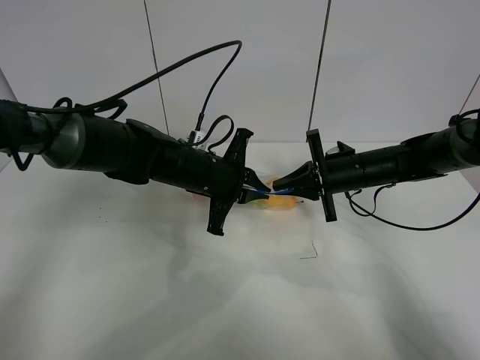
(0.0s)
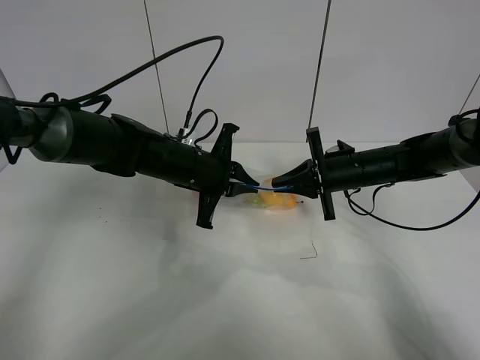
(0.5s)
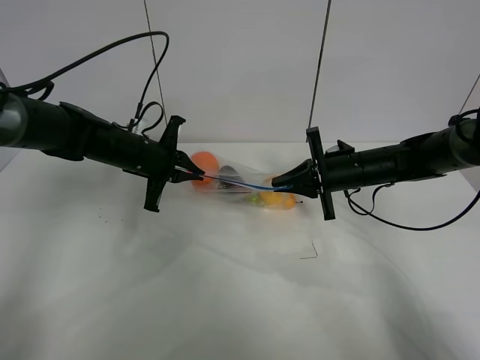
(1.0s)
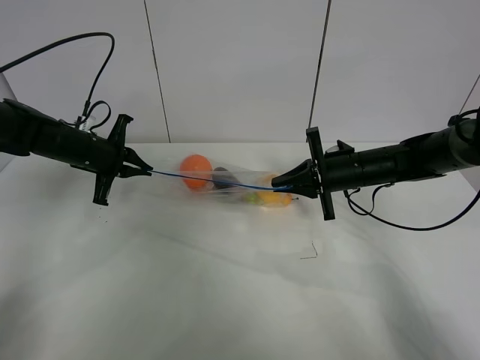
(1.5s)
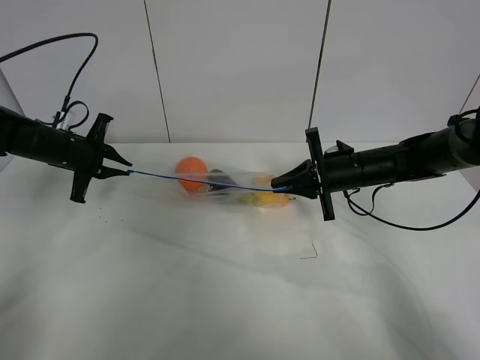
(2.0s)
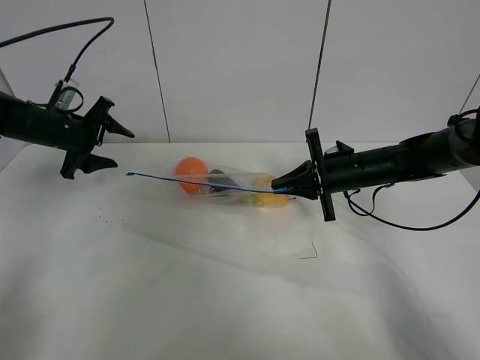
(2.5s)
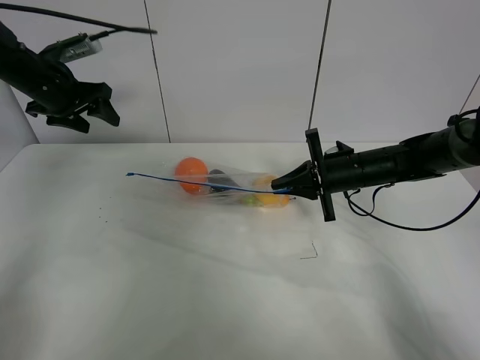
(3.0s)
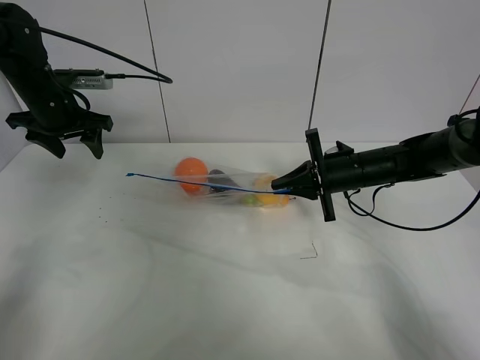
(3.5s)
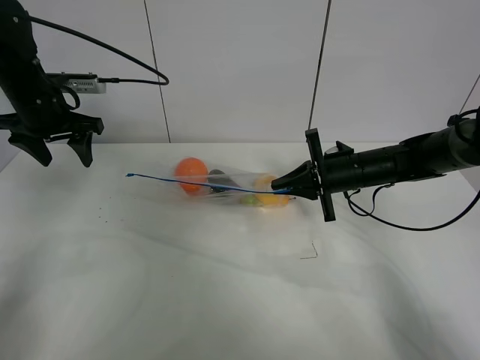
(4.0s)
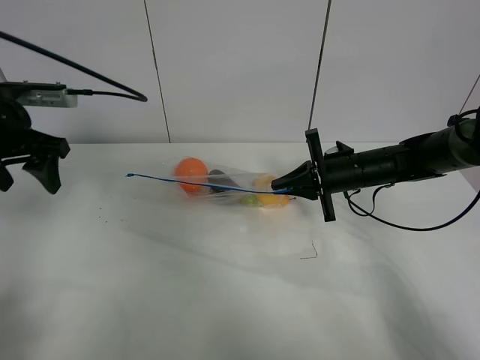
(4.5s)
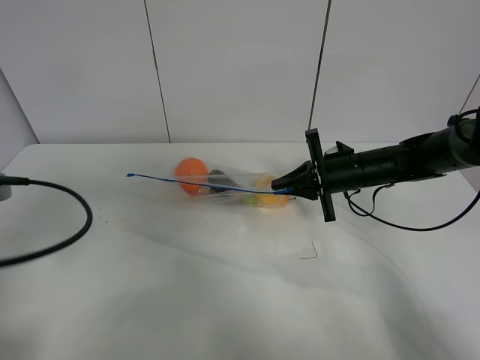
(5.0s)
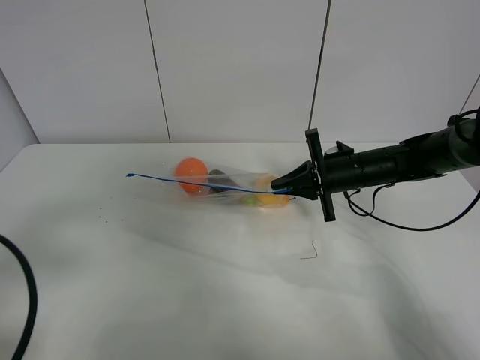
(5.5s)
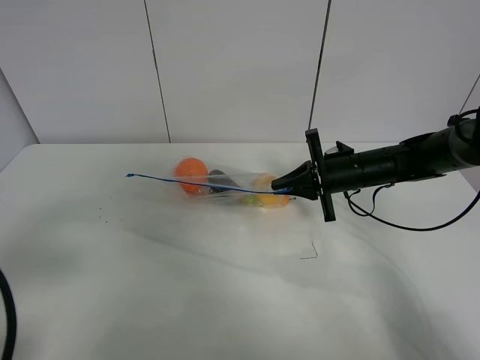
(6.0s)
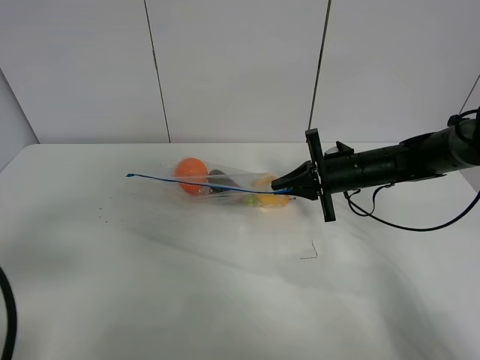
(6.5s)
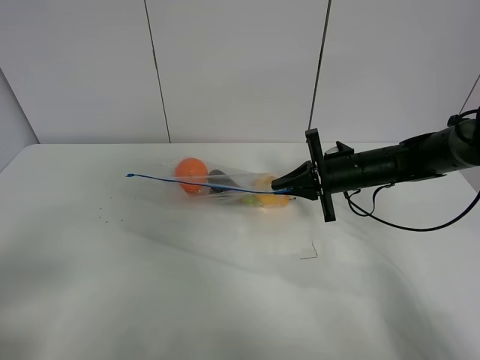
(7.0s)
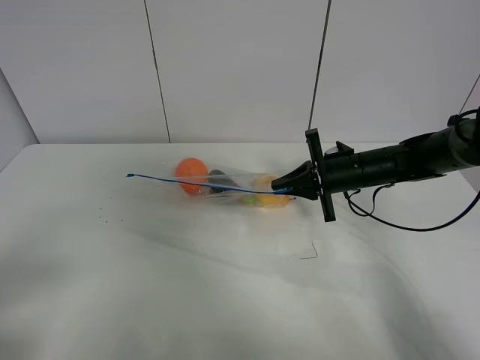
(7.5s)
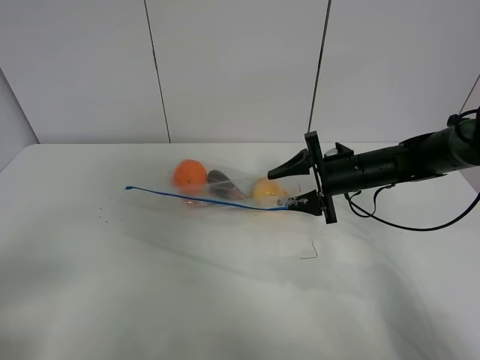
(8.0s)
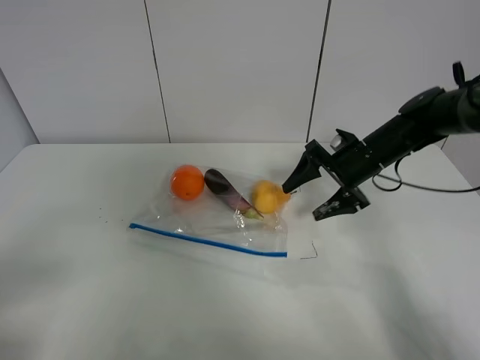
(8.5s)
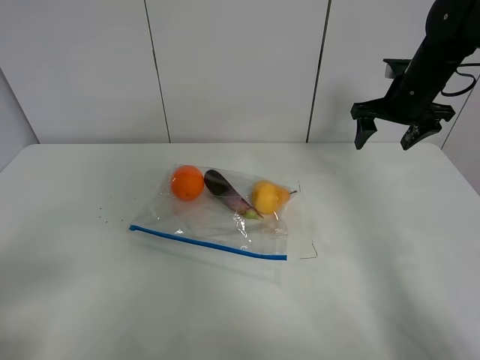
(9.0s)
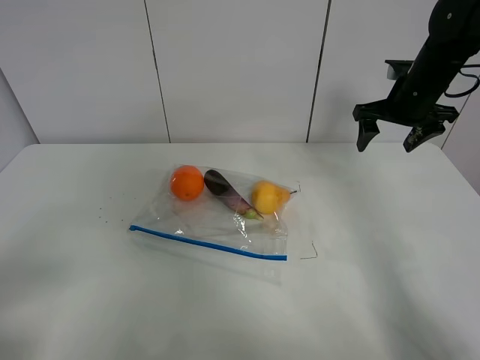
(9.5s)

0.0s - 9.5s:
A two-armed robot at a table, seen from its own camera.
Step, 0.0s - 2.0s: Pull the fruit bag with left gripper.
0.0s - 2.0s: The left gripper shifts about 25 cm to the left.
2.0s - 4.0s: The left gripper moves upward, approximately 10 cm, and opens.
4.0s - 5.5s: The left gripper heads backward, covering some 35 cm.
5.5s - 7.5s: The left gripper heads backward, covering roughly 5 cm.
7.5s - 9.5s: The right gripper travels upward and to the right by some 15 cm, and opens its fingers.

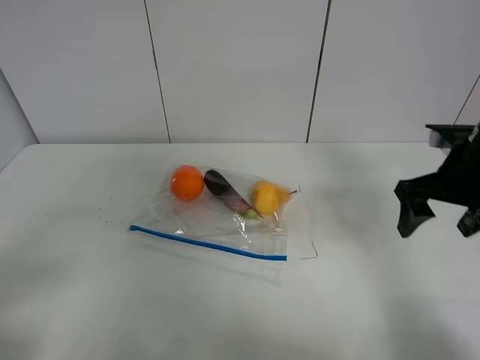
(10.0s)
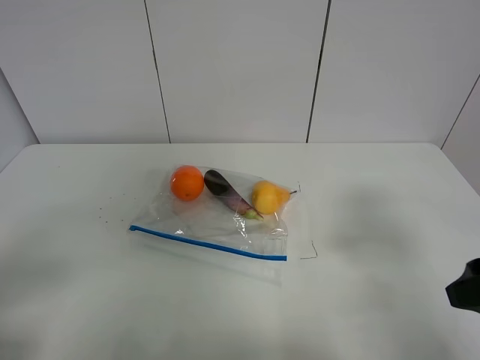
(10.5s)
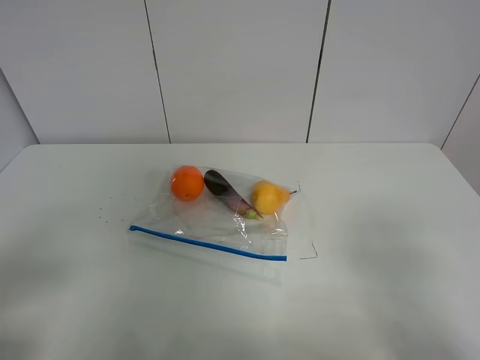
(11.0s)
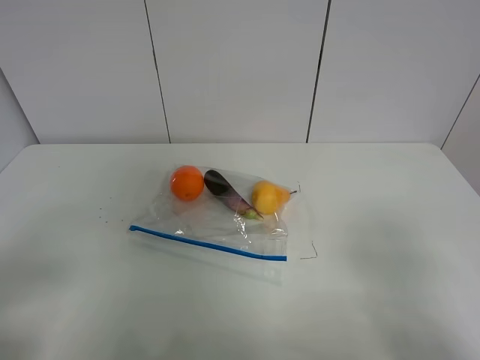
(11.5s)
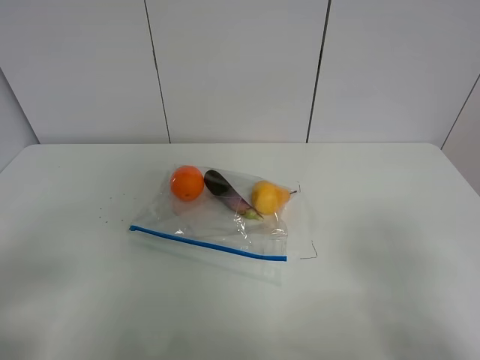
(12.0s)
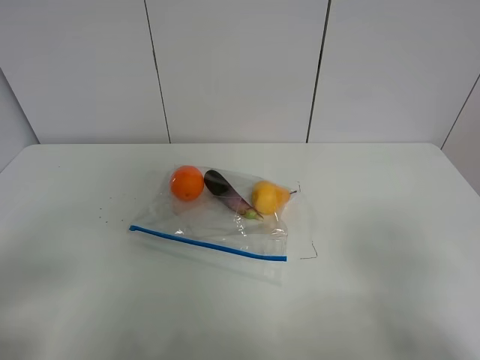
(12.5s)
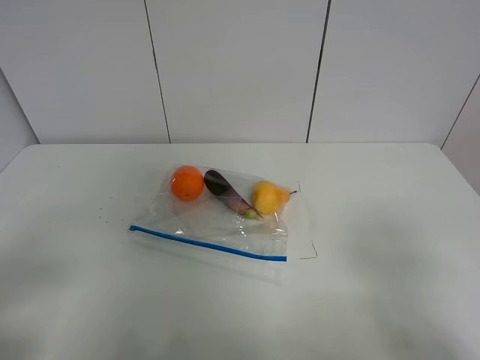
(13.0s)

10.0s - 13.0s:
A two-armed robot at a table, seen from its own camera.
10.0s - 11.5s: The right gripper travels backward by approximately 25 cm.
11.5s - 13.0s: Both grippers stay about where they are.

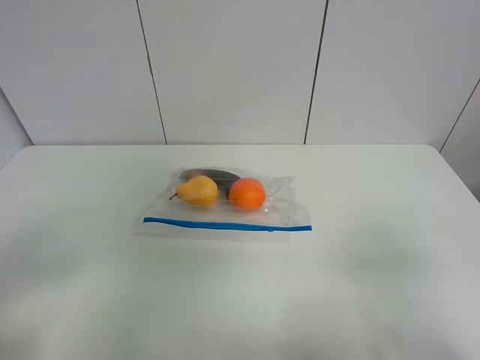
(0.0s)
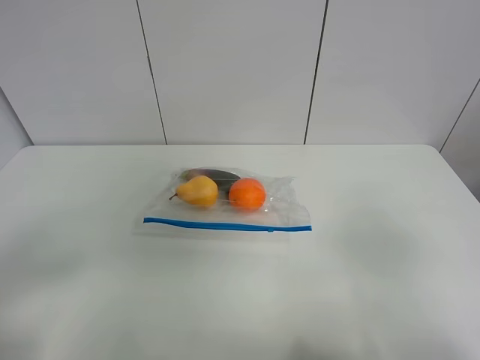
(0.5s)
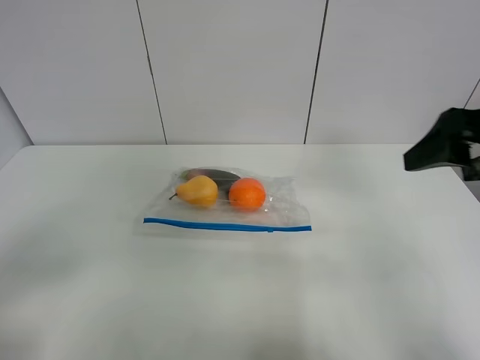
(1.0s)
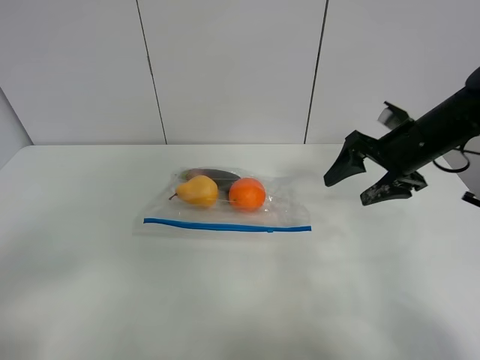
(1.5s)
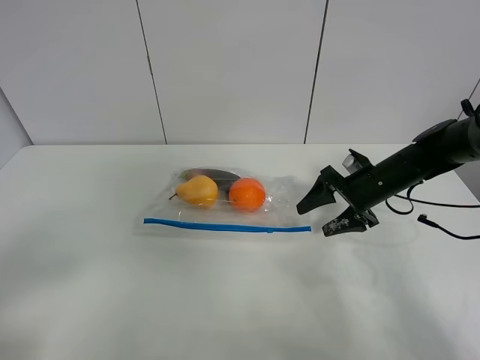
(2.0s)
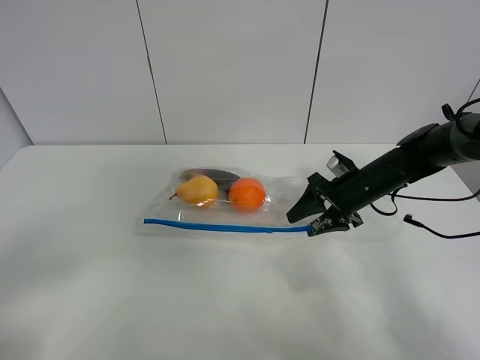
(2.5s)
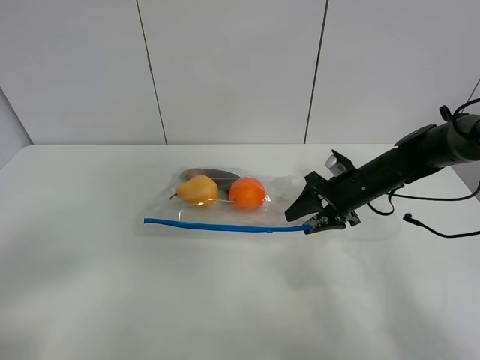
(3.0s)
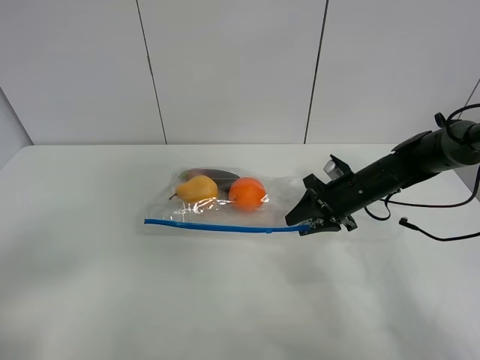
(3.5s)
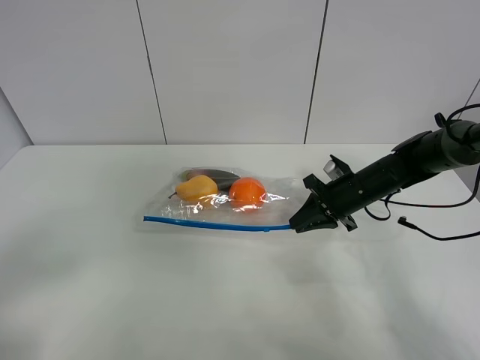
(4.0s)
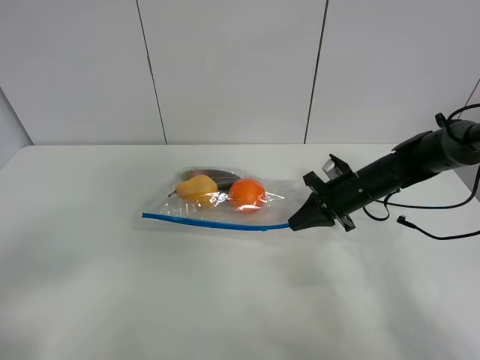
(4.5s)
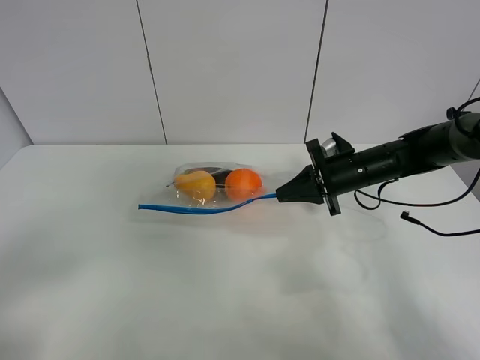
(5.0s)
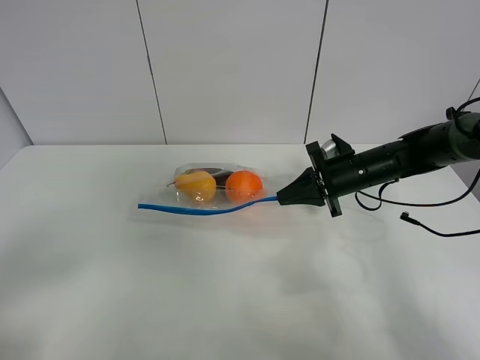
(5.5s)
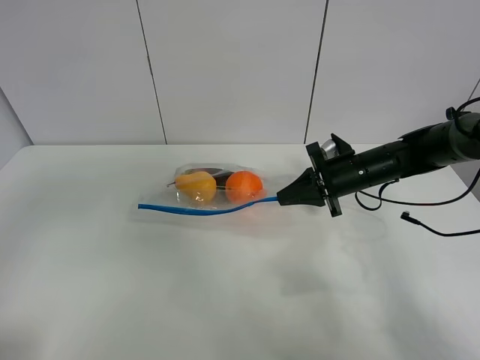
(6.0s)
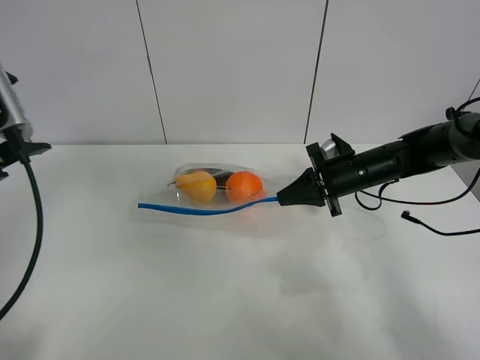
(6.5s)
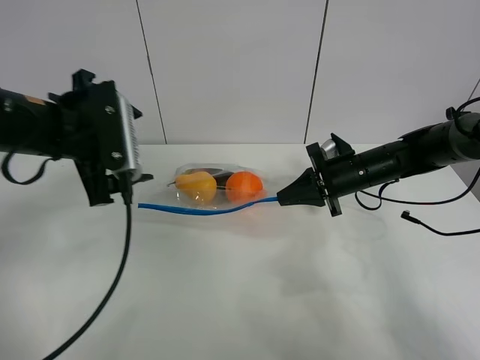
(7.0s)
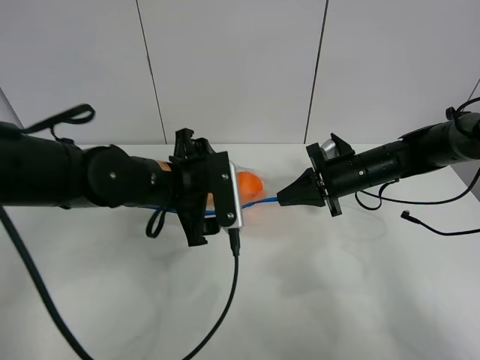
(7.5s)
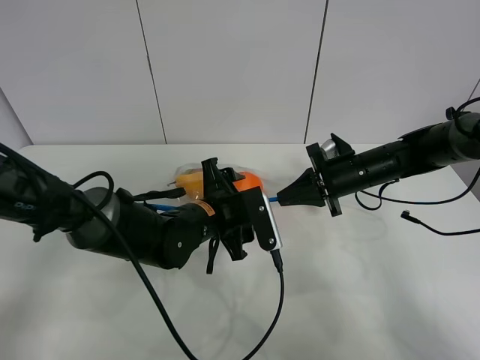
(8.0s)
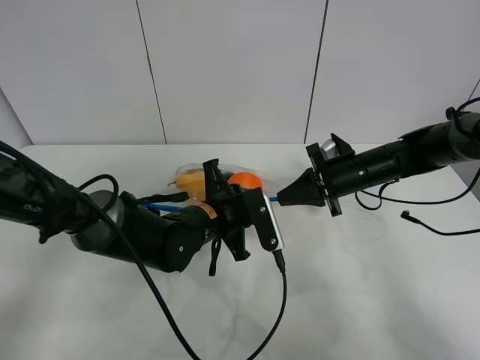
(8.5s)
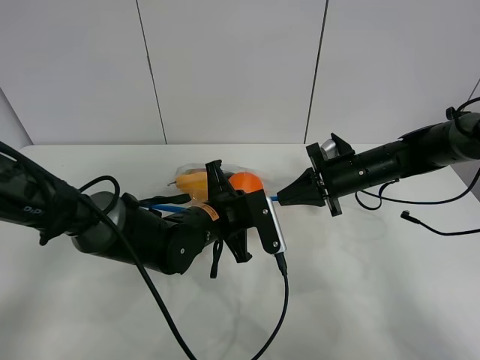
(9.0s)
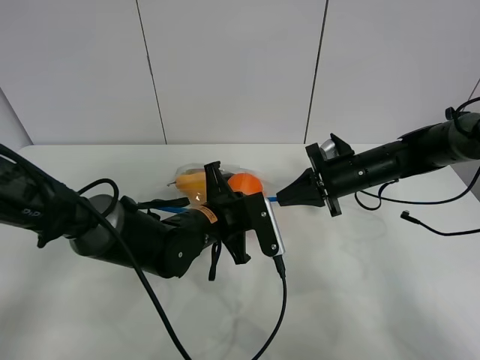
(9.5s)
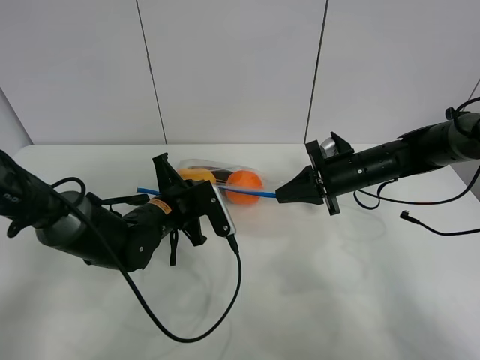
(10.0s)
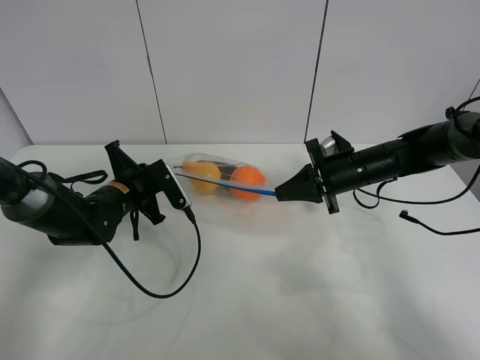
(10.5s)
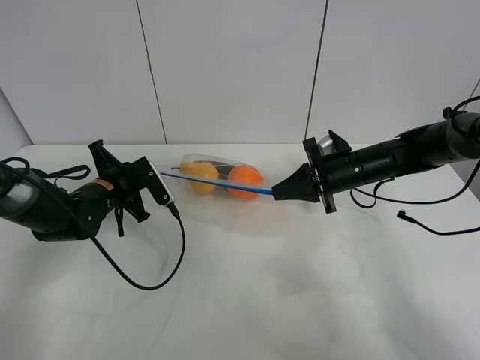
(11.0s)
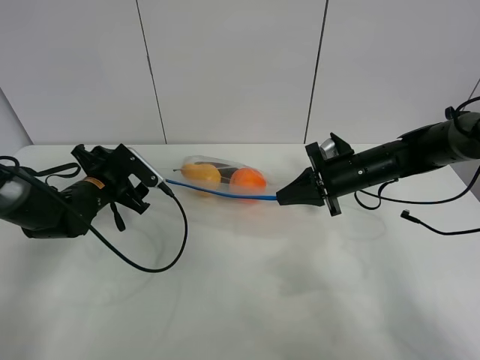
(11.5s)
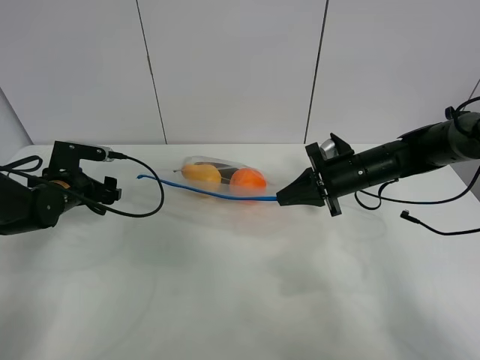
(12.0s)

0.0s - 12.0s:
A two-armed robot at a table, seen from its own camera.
Step, 0.0s - 4.0s: Grasp the fruit bag with right gripper.
Step, 4.5s - 5.0s: Lift the fruit bag with your right gripper.
Step, 5.5s - 11.0s: Pull the fruit bag with left gripper.
0.0s - 2.0s: The right gripper is displaced forward and downward by roughly 40 cm.
2.0s - 4.0s: The right gripper closes its fingers.
4.0s - 6.0s: The left gripper goes some 10 cm upward and forward.
6.0s - 8.0s: The left gripper moves to the right, downward and forward, roughly 40 cm.
8.0s - 10.0s: The left gripper shifts approximately 10 cm to the left, and closes its fingers.
10.0s - 12.0s: The left gripper travels to the left by roughly 20 cm, and opens.

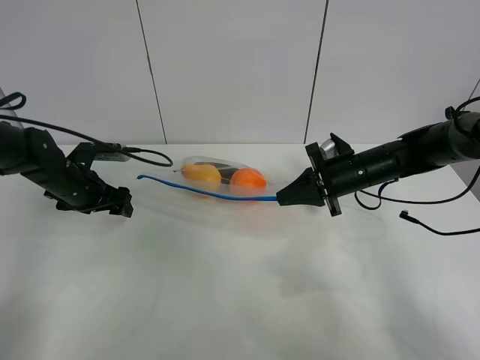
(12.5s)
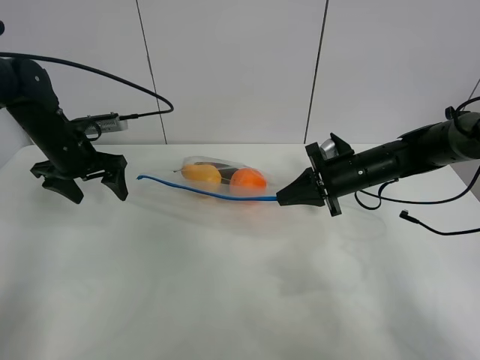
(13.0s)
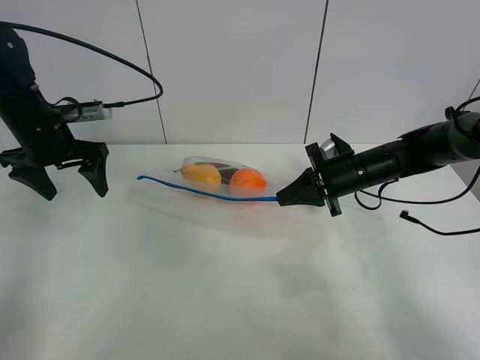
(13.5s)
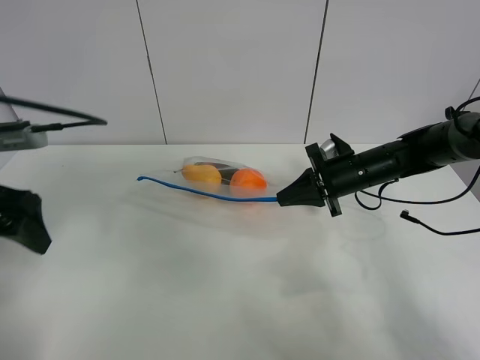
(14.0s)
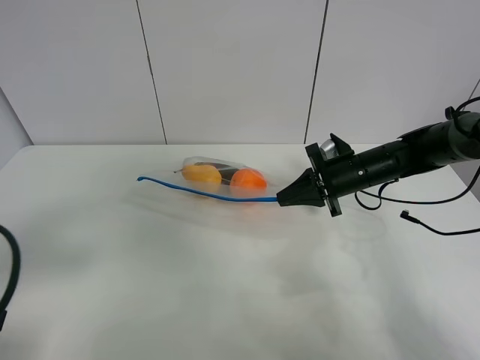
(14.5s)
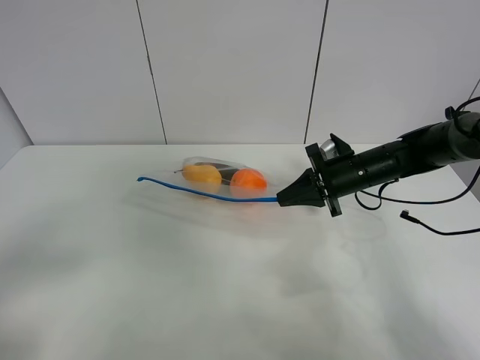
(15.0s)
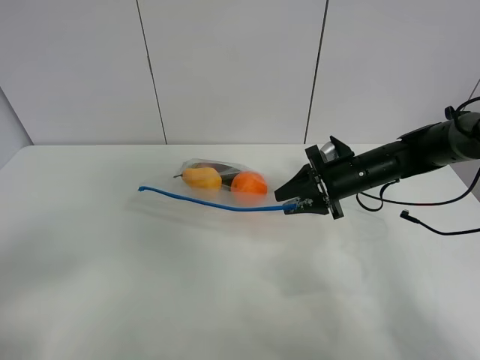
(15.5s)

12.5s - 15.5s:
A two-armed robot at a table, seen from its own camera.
12.5s - 14.0s: The left gripper moves backward and upward, about 25 cm.
14.0s - 15.5s: The left gripper is displaced backward by some 20 cm. The right gripper opens.
